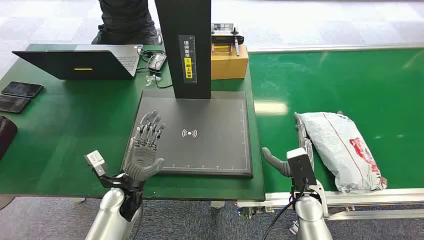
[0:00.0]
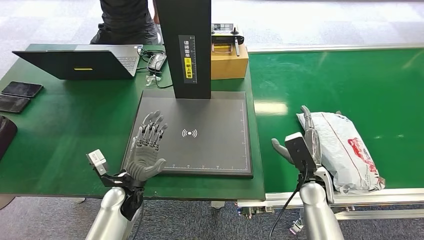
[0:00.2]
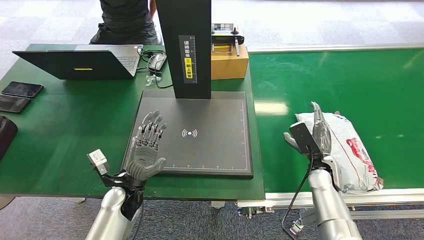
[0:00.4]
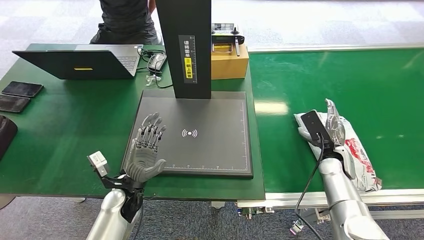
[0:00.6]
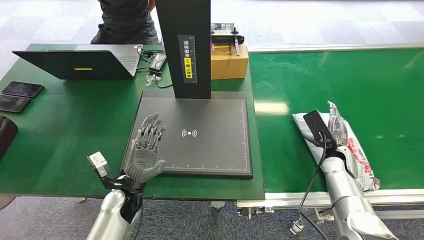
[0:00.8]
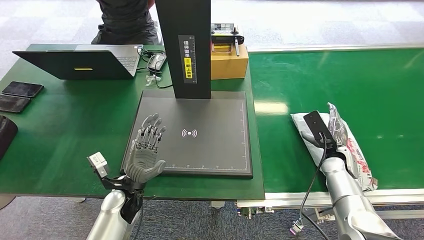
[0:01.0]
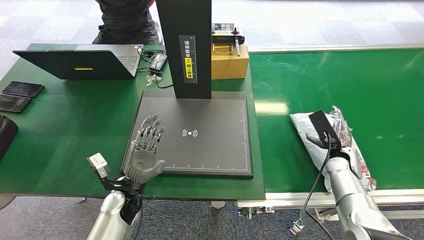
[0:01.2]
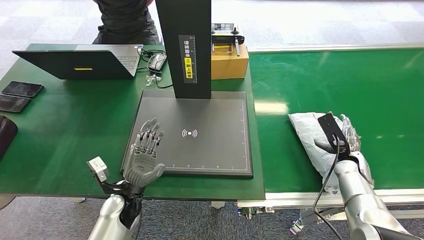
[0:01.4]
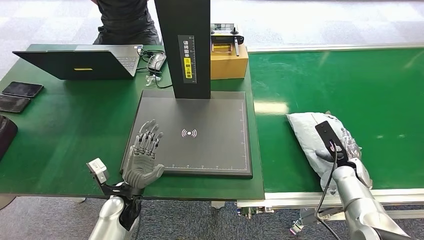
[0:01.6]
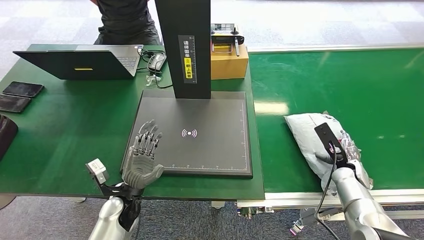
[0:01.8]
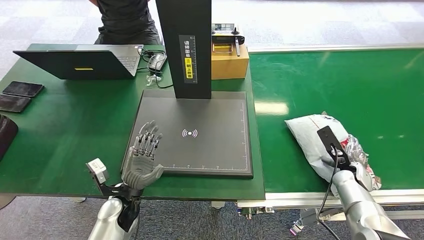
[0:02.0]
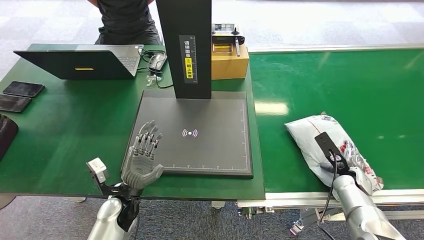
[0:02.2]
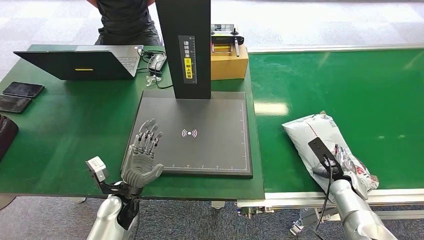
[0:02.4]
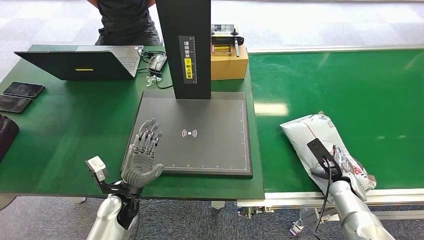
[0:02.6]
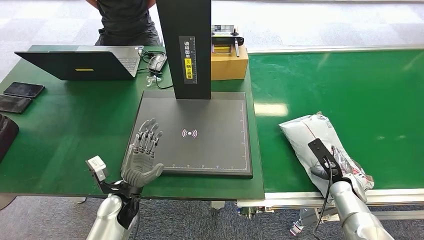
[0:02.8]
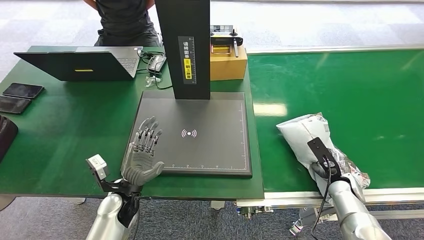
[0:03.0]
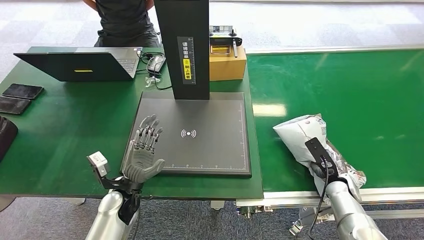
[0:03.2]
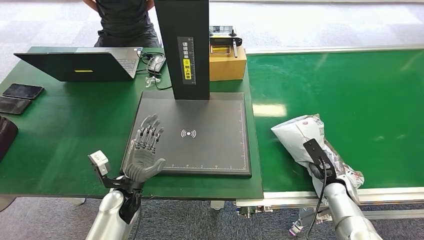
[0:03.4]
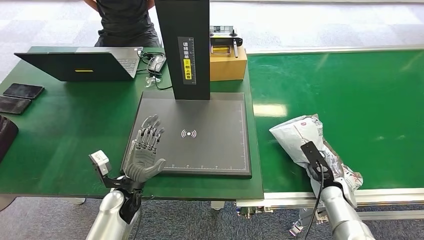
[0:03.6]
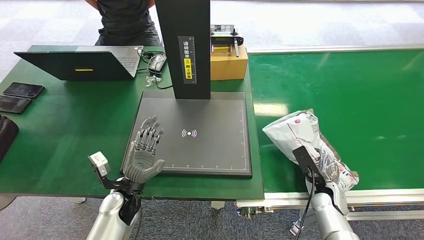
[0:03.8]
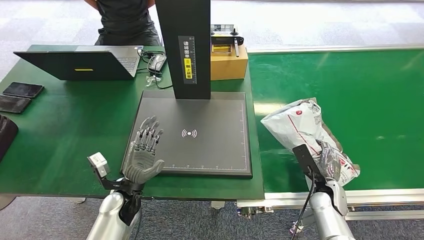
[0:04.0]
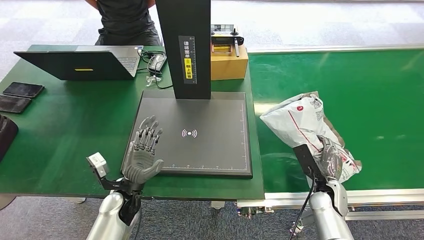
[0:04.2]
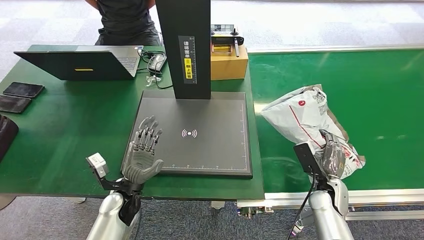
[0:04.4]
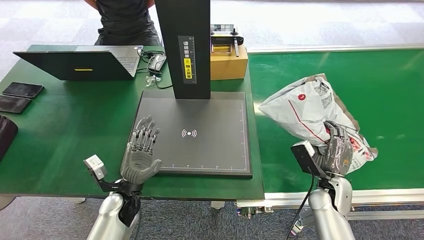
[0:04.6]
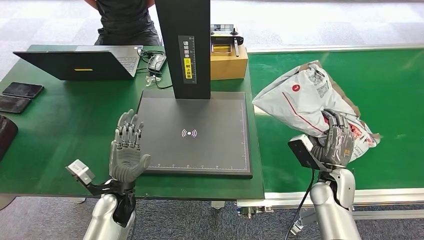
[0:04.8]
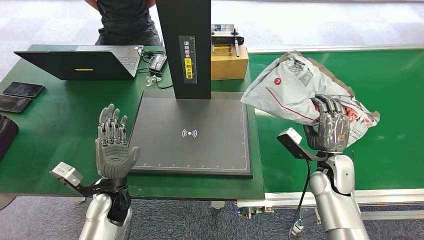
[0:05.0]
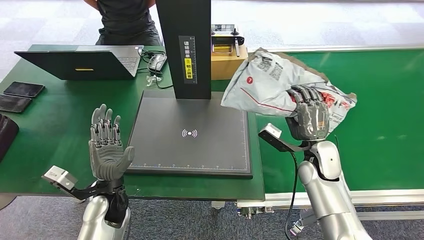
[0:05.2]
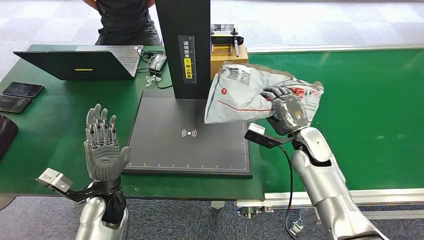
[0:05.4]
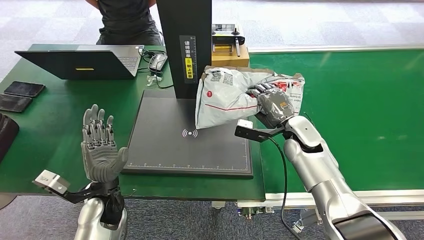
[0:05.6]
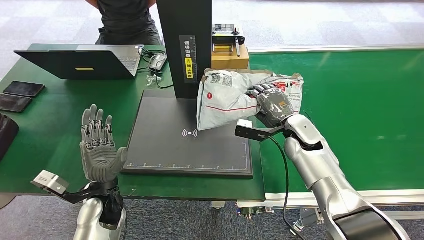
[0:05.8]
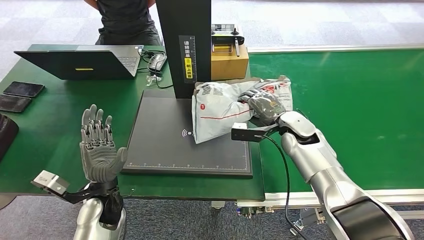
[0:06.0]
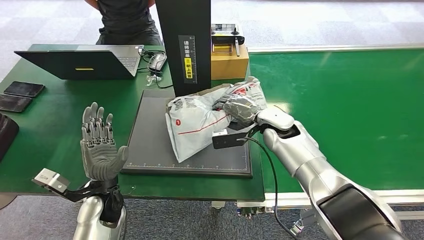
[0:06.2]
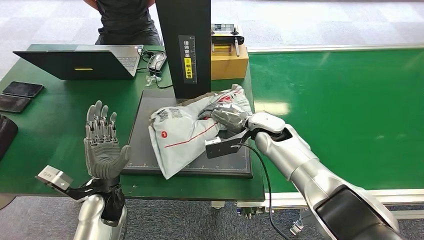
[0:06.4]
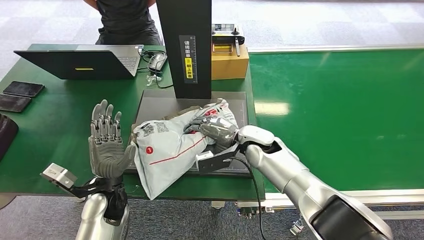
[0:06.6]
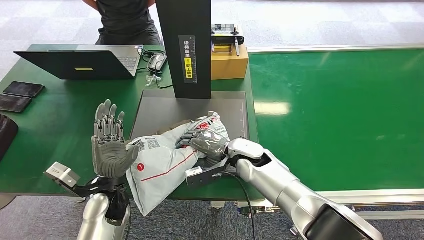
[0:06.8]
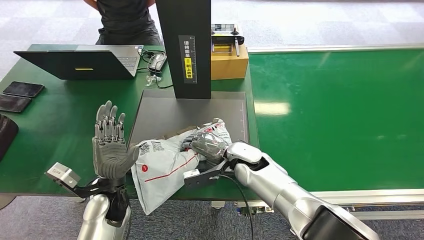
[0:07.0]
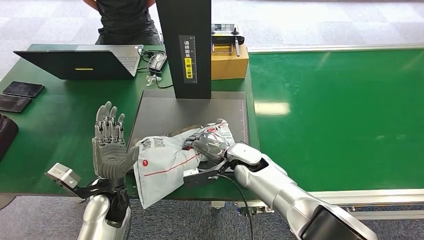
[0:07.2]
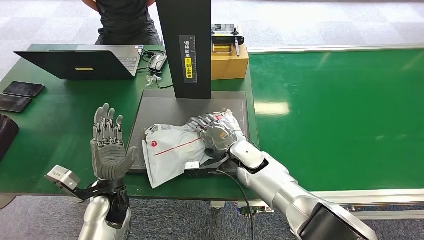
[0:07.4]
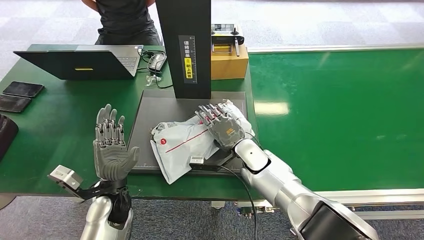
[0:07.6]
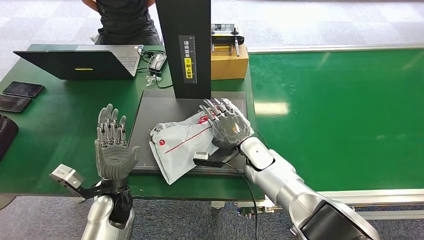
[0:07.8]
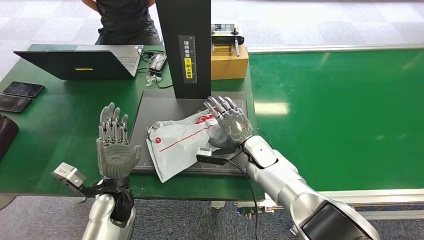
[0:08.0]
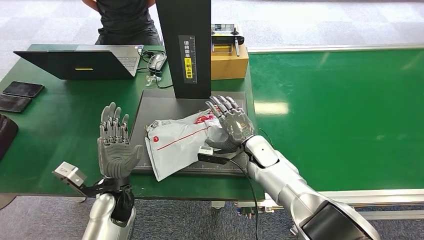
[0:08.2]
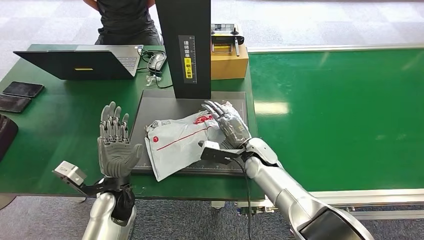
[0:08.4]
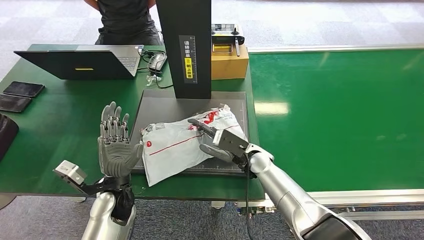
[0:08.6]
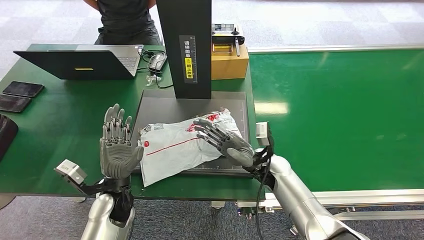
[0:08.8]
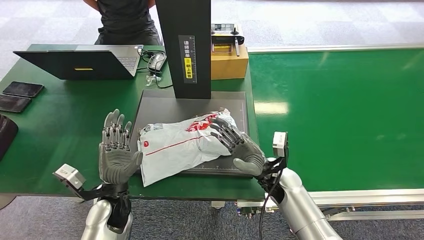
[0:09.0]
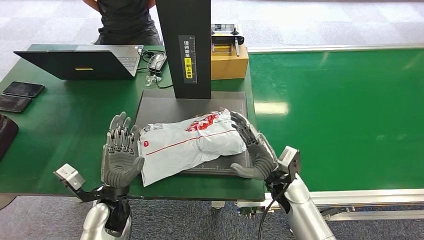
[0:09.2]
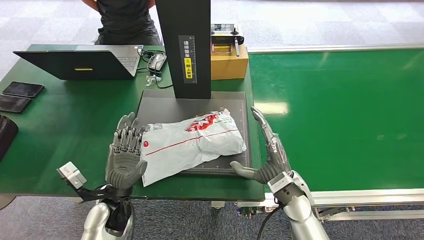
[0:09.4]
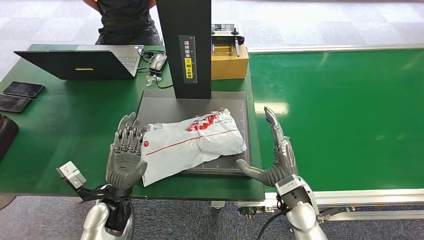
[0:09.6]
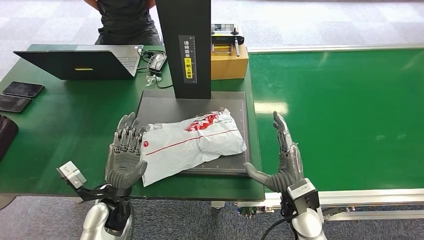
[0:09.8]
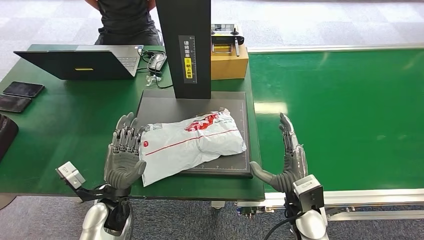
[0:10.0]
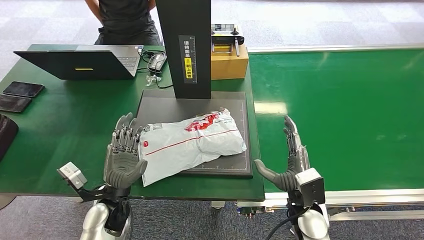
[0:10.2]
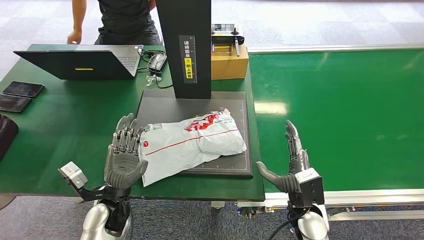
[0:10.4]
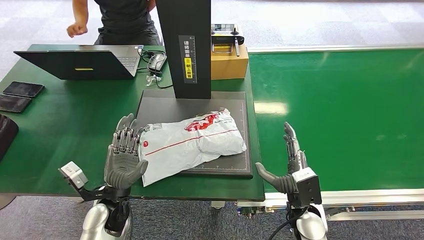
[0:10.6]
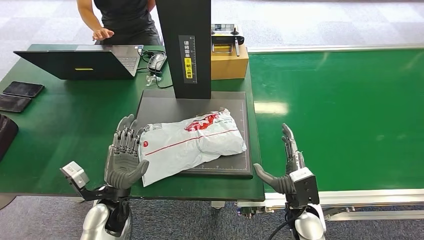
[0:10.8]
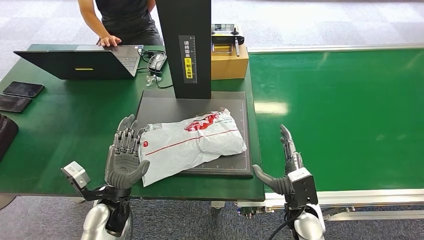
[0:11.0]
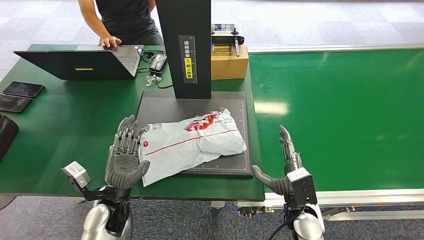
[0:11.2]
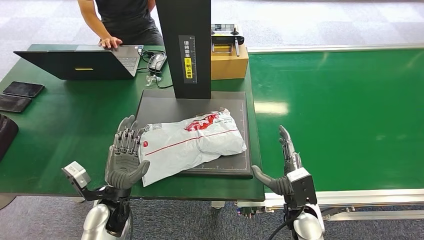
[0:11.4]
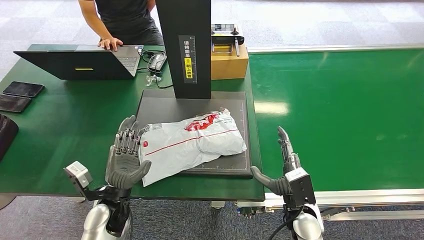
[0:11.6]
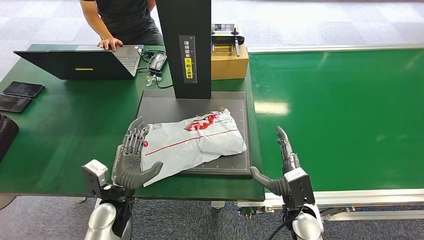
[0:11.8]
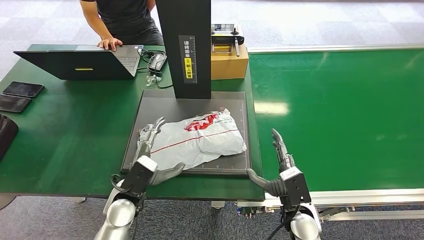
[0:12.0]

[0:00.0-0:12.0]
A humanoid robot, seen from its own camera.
Step, 0:00.0 to 0:04.8: Pick up the package from the conveyor belt.
Step, 0:05.0 to 0:08.8: Place the package onto the inbound machine.
0:01.6 to 0:03.0: The right hand heads downward, covering roughly 5 cm.
0:03.0 to 0:04.4: The right hand goes about 5 cm to the left.
0:07.6 to 0:09.0: The right hand travels to the right and backward by some 10 cm.
0:09.0 to 0:10.4: The right hand is displaced backward and to the right by about 10 cm.

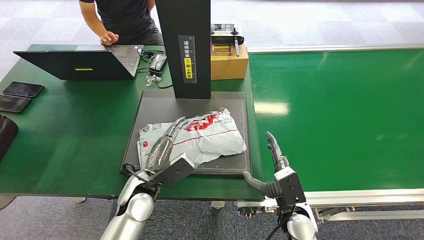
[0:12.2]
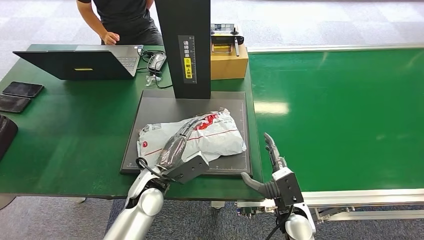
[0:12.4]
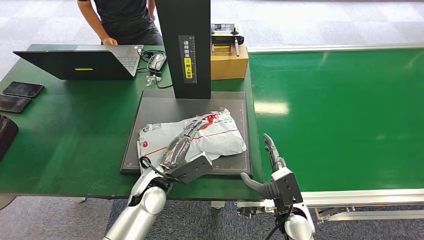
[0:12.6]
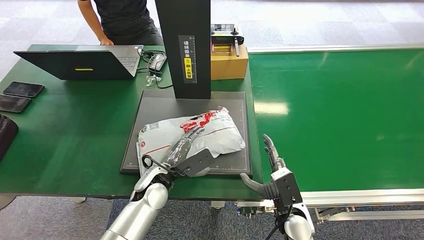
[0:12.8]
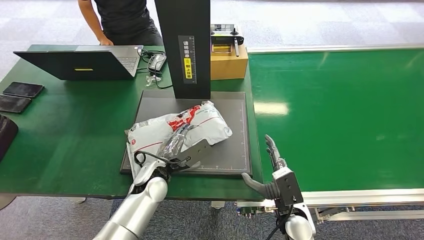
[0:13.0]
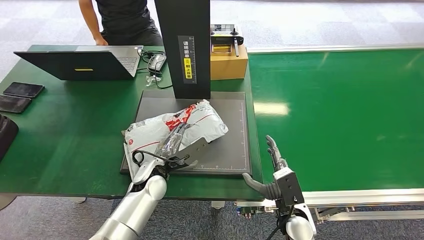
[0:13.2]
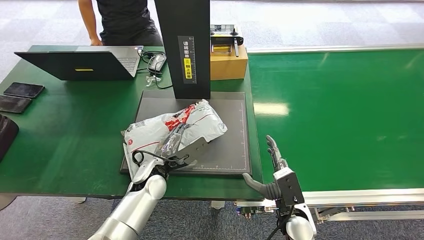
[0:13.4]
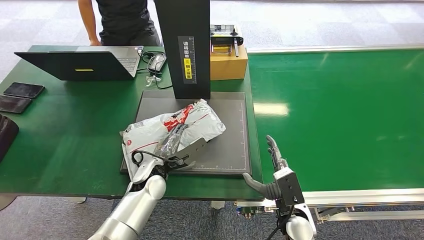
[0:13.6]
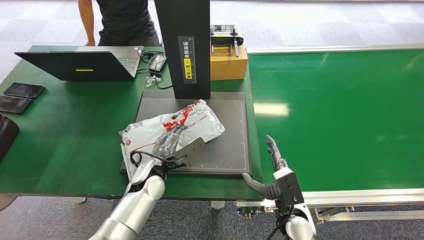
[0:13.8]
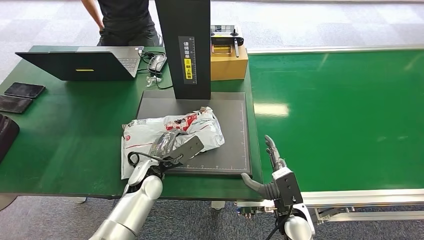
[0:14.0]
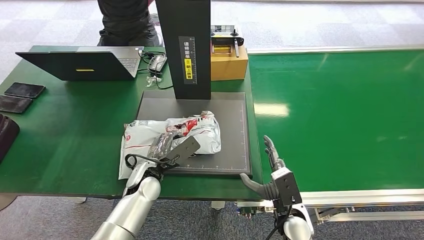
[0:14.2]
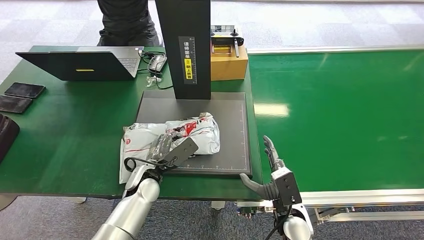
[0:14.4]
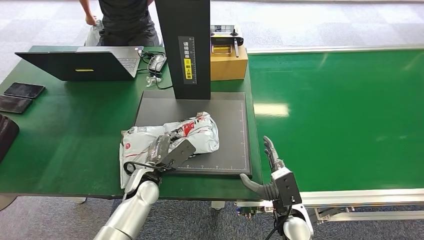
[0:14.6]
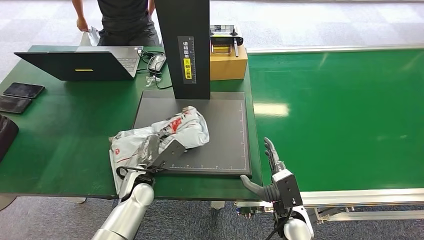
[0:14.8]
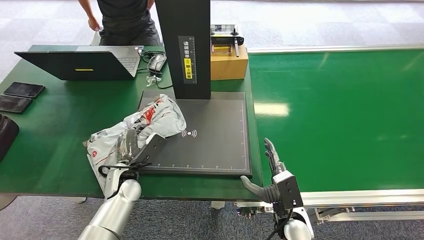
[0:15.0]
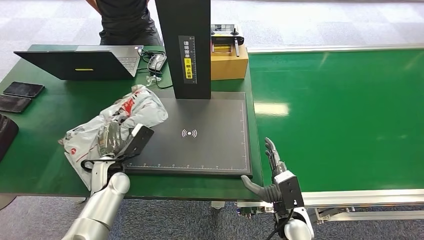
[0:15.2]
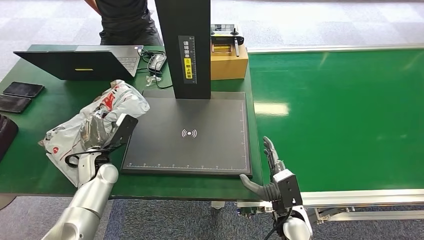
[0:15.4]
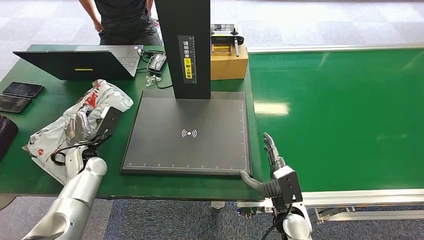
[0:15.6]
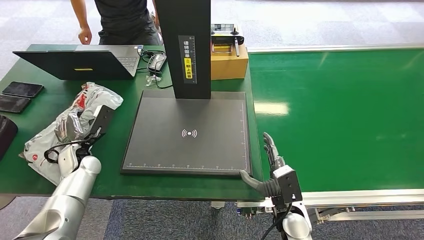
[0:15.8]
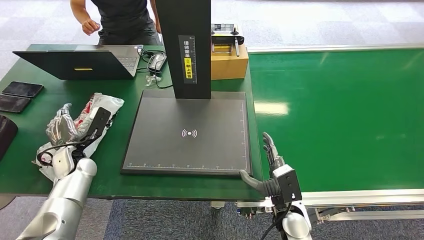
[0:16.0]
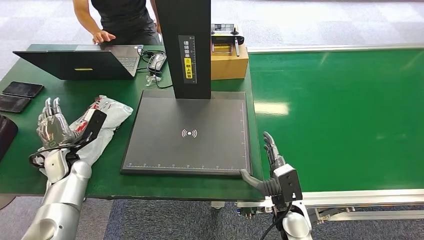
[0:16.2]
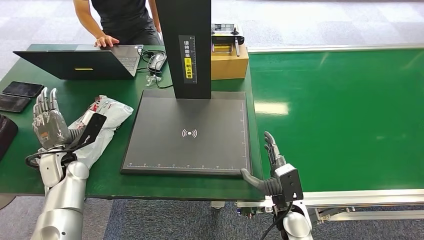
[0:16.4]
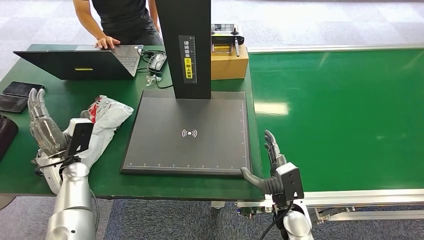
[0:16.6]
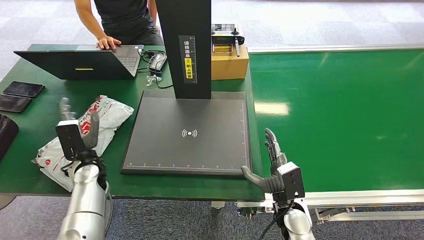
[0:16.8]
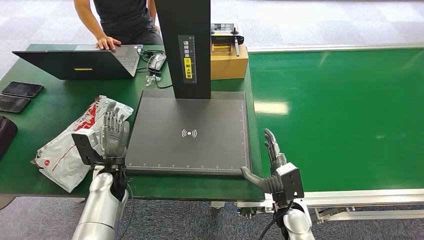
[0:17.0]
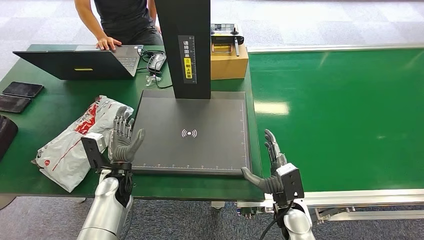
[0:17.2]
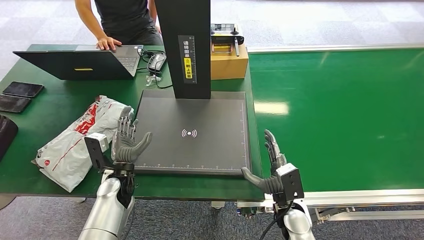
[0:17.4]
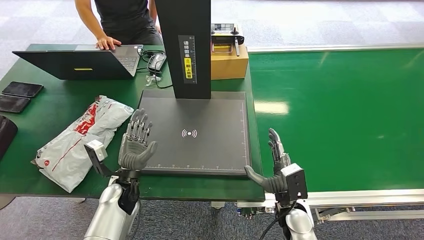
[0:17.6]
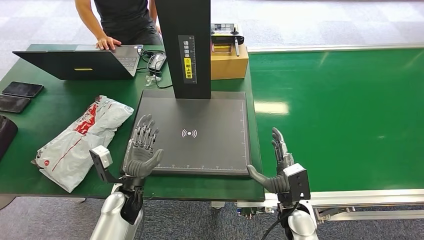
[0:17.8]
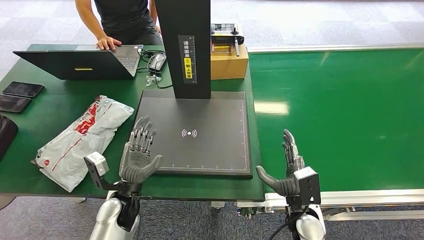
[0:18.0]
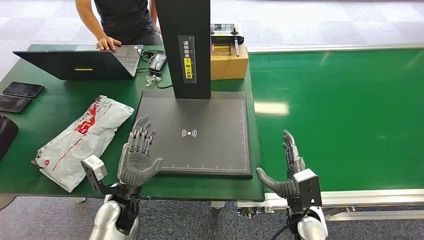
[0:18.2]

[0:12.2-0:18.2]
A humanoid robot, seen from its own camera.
Step, 0:12.2 to 0:15.2: Pick up the package from the inbound machine.
Step, 0:15.4 to 0:18.2: Place the package into the parcel locker.
0:13.8 to 0:15.2: The left hand heads to the left, covering roughly 10 cm.
0:15.2 to 0:16.6: The left hand goes some 10 cm to the left.
0:16.6 to 0:18.2: The left hand moves to the right and backward, roughly 20 cm.
